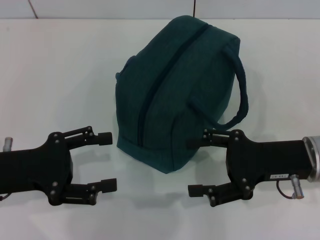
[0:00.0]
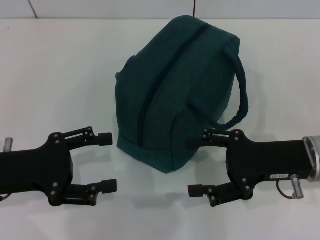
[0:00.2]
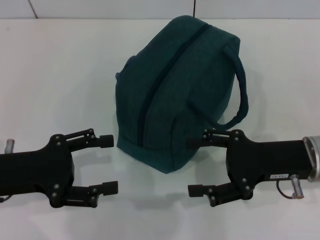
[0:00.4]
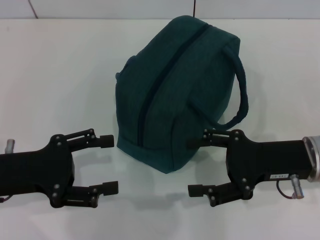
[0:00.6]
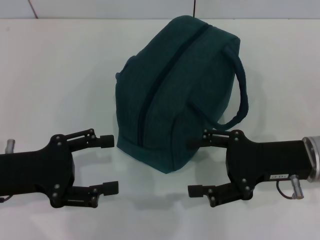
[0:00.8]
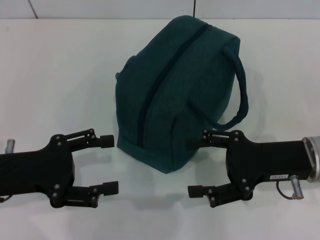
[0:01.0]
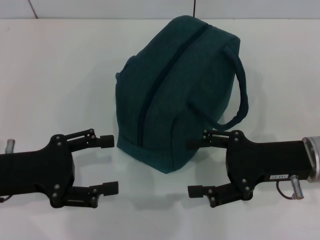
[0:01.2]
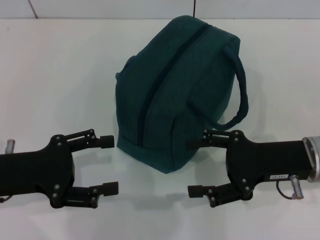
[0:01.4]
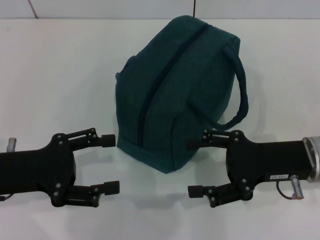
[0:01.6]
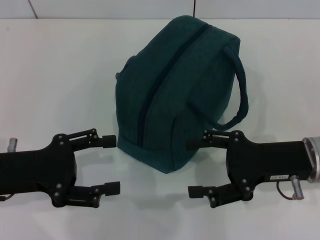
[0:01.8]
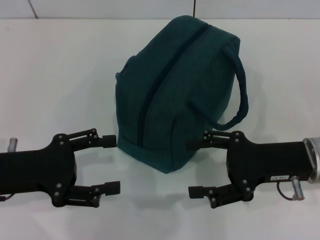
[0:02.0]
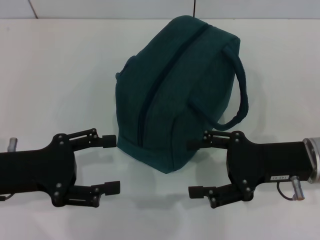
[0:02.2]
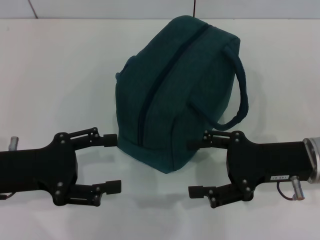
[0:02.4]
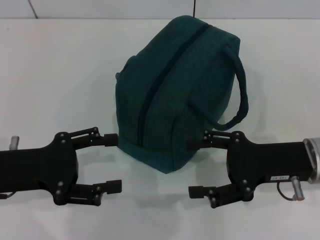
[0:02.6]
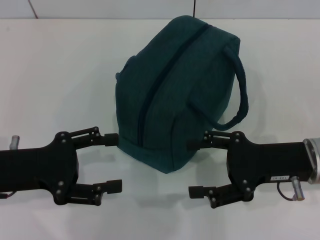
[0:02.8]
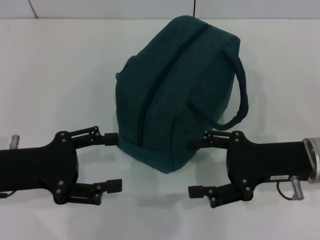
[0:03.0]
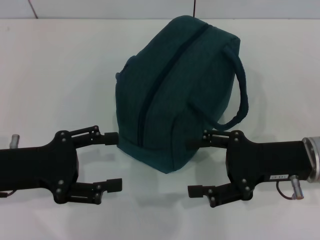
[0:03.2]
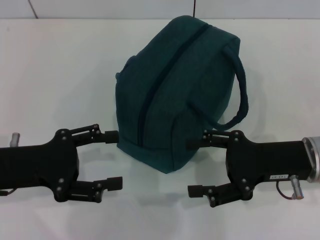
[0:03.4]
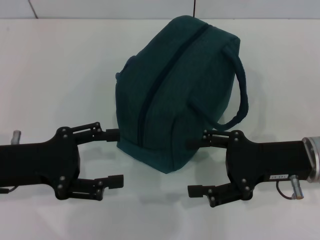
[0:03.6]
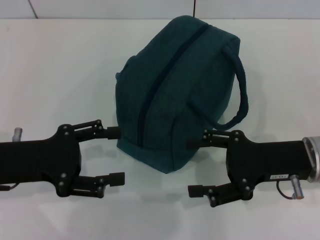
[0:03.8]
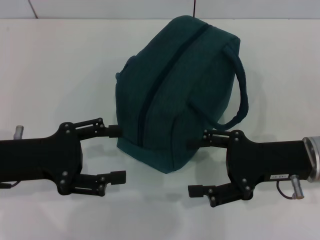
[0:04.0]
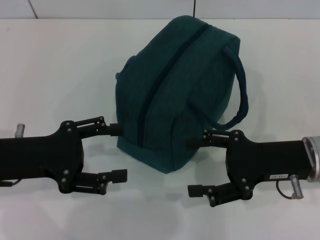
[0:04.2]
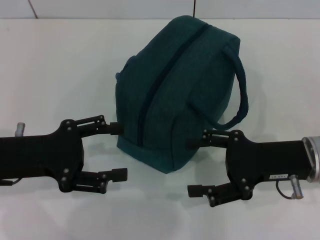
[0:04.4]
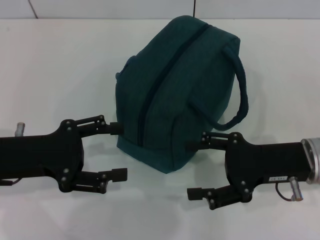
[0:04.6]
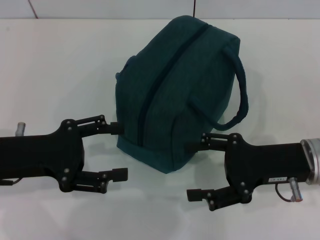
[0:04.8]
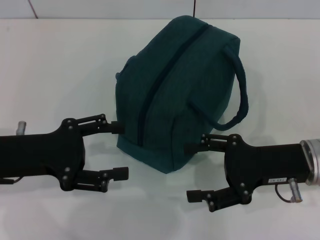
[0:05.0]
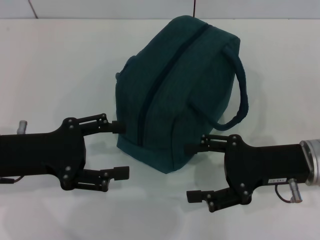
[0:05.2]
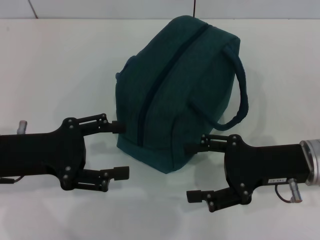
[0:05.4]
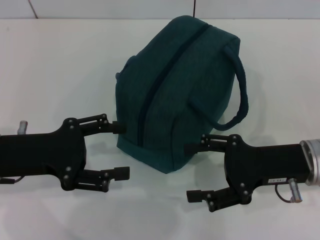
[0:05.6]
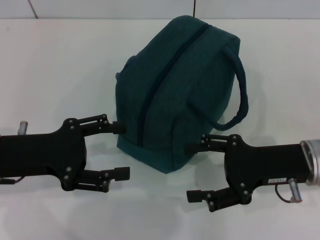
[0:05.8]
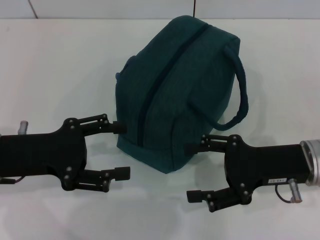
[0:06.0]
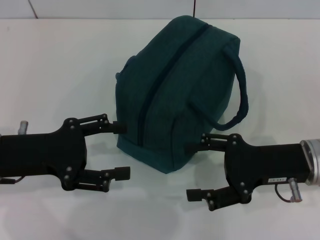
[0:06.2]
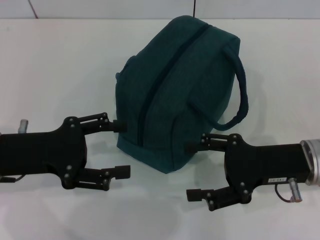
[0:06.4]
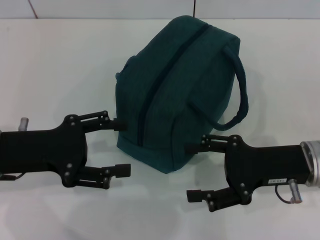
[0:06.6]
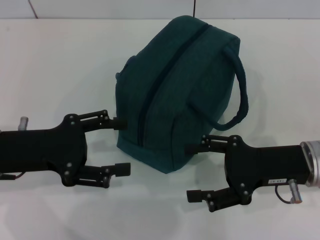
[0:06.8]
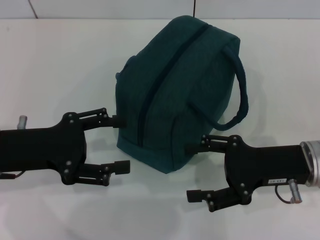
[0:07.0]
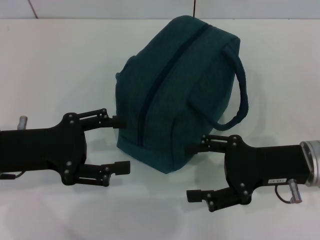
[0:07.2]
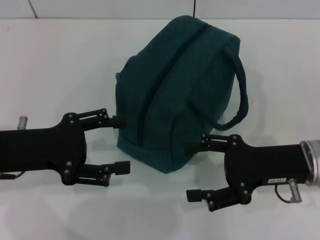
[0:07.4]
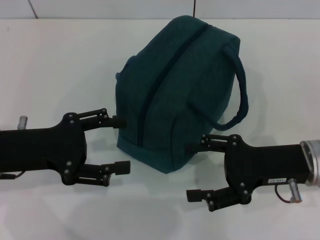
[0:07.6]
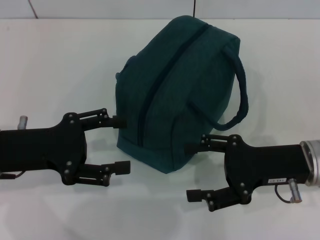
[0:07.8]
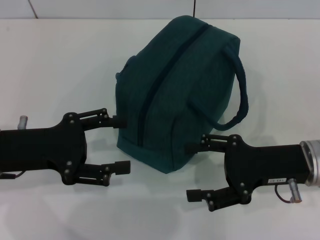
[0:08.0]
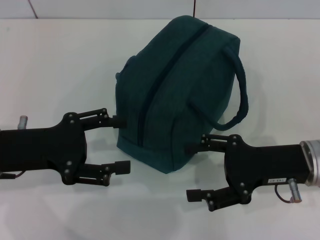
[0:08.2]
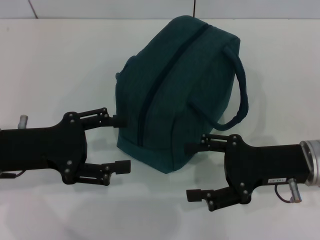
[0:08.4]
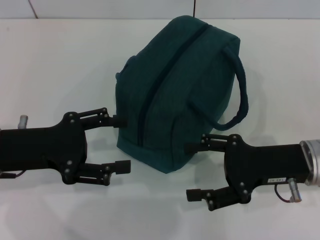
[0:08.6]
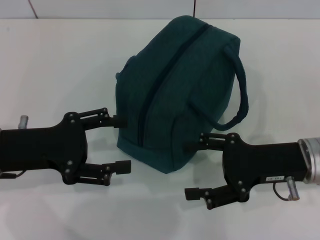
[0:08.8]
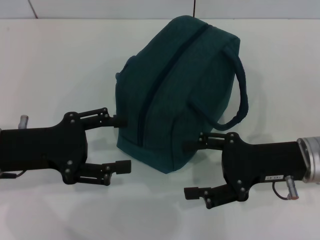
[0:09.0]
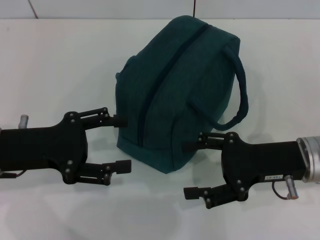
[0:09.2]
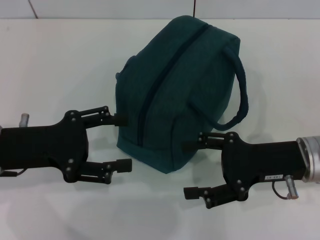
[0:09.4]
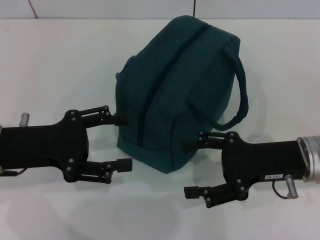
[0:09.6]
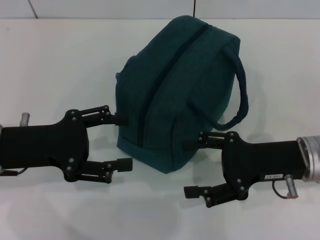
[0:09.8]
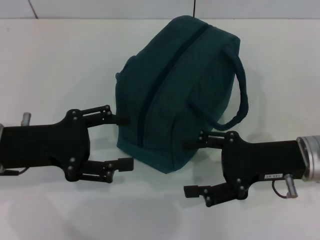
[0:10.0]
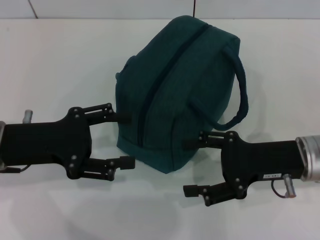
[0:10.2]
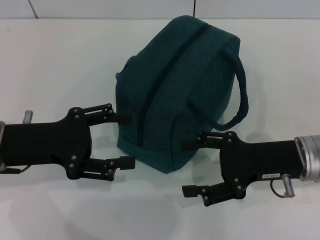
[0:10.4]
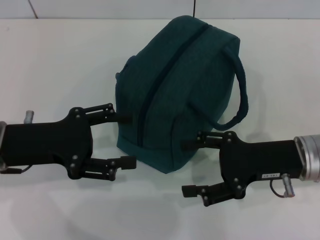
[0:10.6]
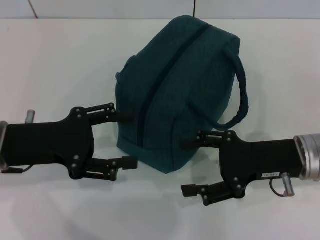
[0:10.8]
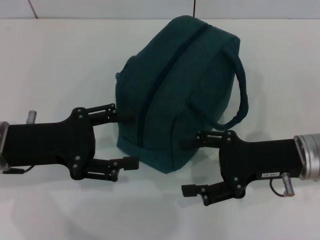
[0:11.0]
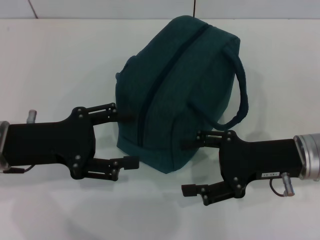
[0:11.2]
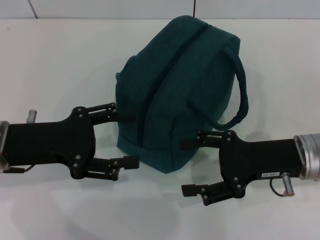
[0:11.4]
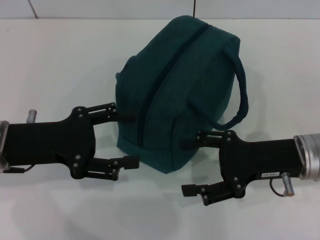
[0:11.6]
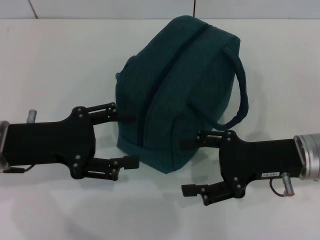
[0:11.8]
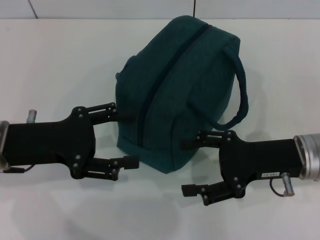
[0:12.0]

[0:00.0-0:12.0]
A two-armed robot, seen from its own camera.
0:00.0 to 0:03.0: Both grippers stay put.
0:03.0 to 0:04.4: There are only small adjustments of the grippers.
0:04.4 to 0:09.0: The two grippers keep their place.
0:09.0 to 0:12.0: Both grippers stay put.

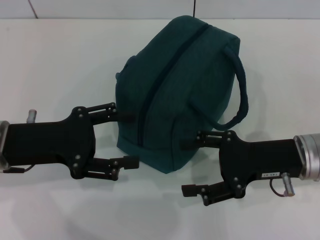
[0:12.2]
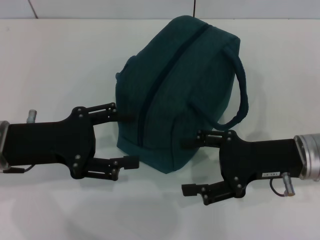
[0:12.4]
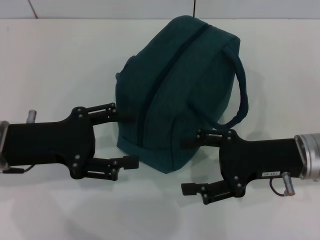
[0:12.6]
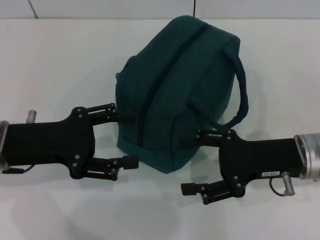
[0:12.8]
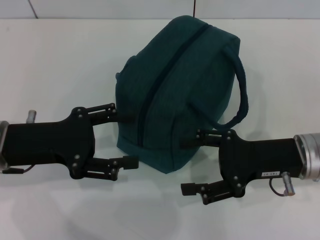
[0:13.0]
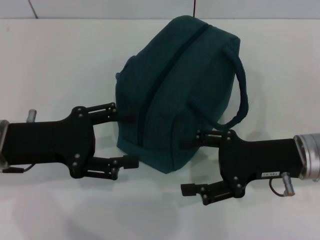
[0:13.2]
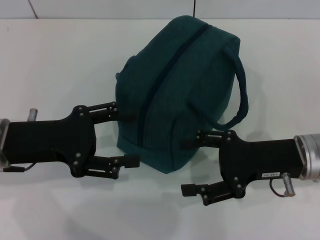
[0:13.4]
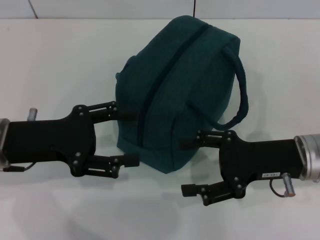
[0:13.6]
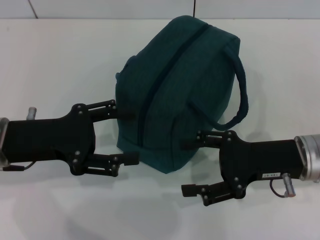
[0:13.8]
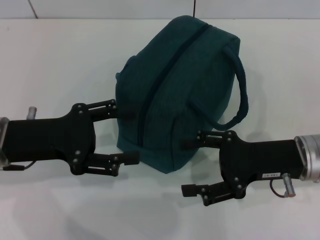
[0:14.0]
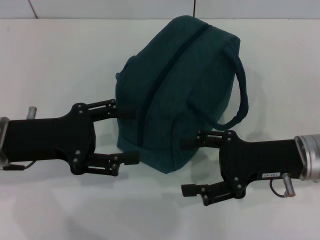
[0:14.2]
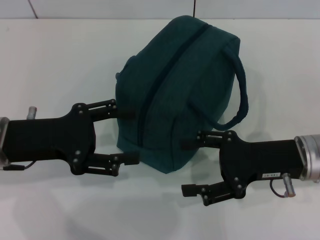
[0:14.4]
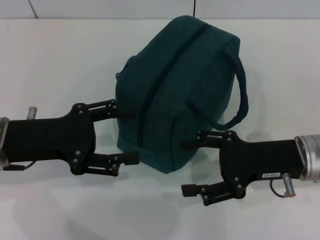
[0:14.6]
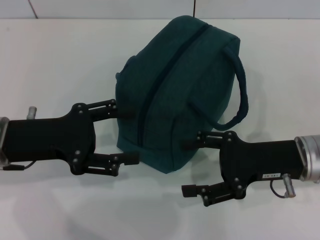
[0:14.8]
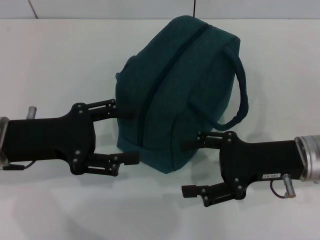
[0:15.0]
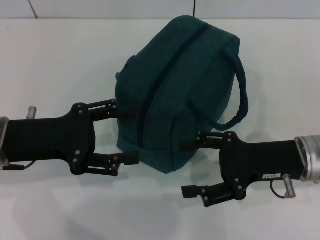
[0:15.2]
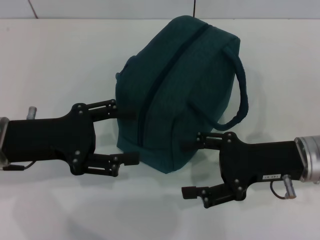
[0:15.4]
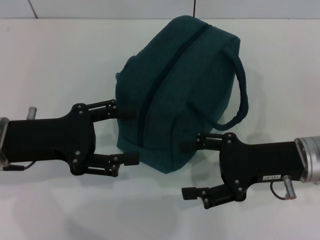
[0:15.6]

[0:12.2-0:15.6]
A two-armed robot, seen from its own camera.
0:12.2 to 0:15.6: Both grippers stay about where they are.
